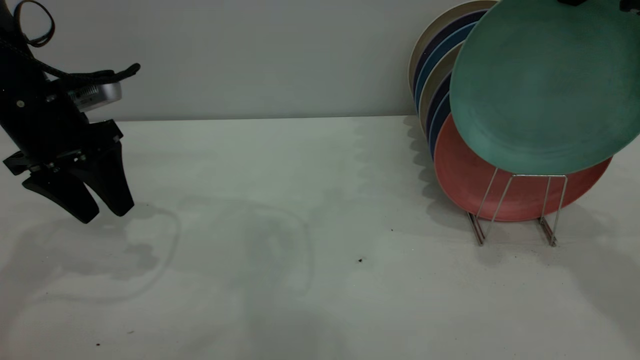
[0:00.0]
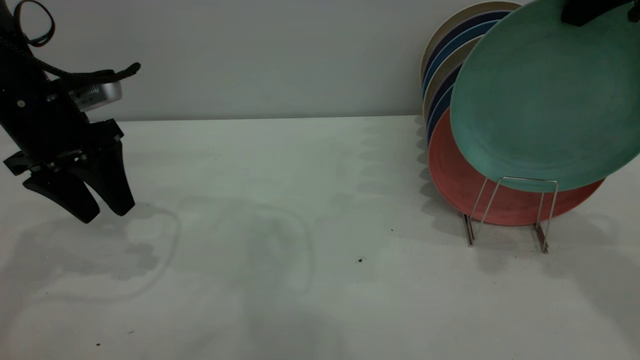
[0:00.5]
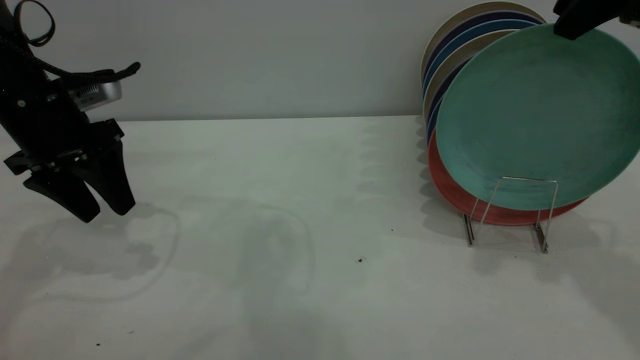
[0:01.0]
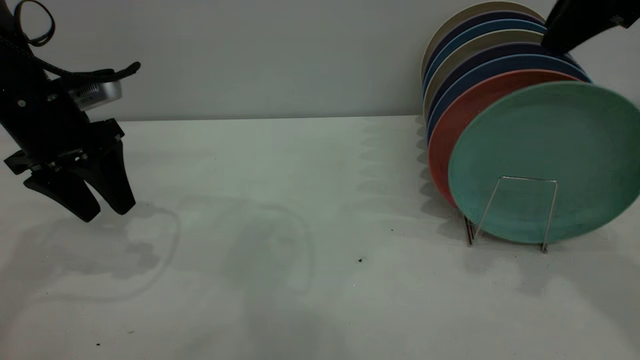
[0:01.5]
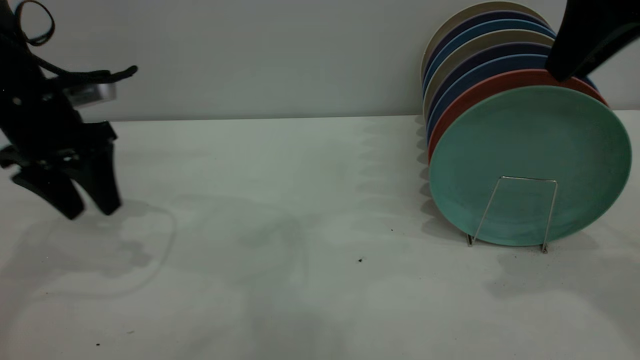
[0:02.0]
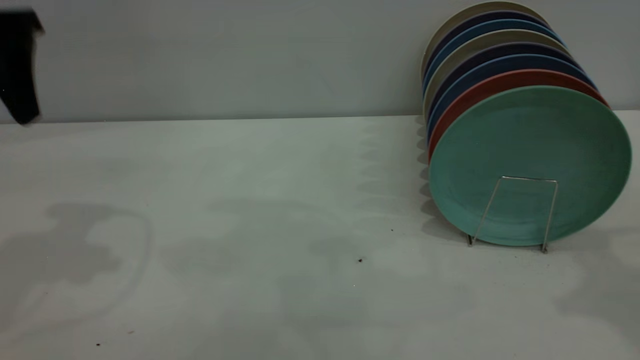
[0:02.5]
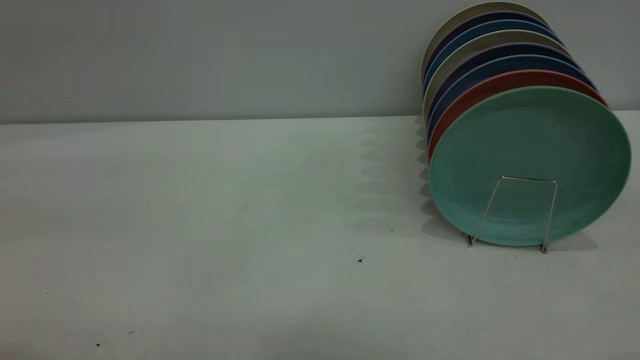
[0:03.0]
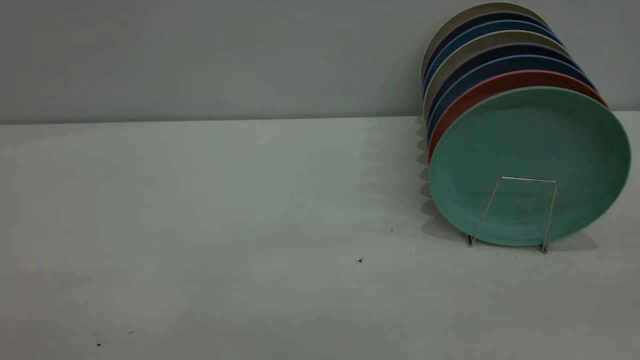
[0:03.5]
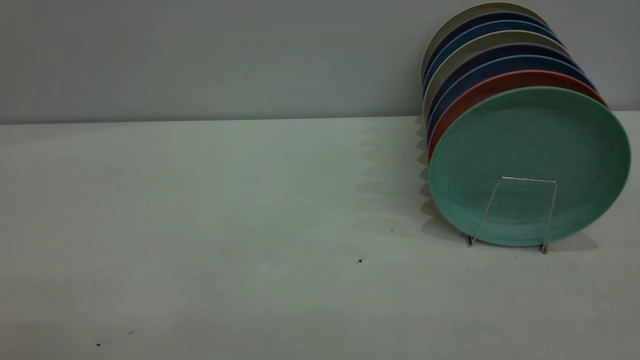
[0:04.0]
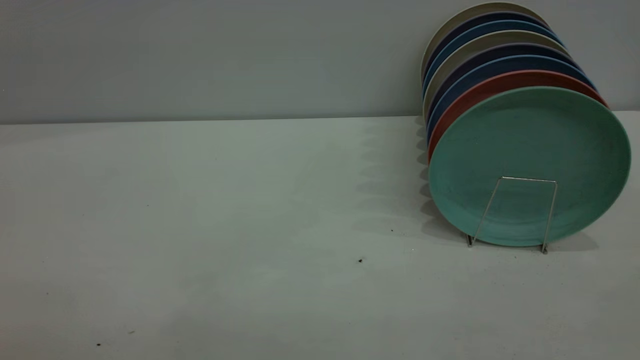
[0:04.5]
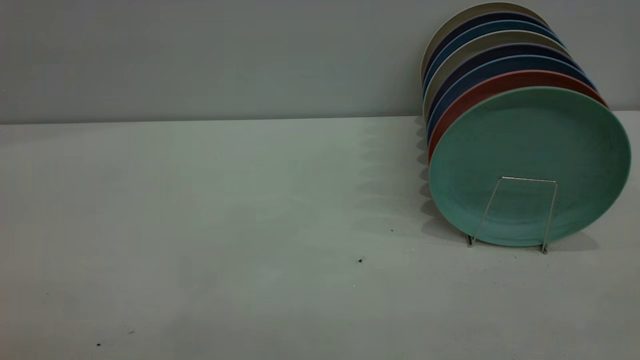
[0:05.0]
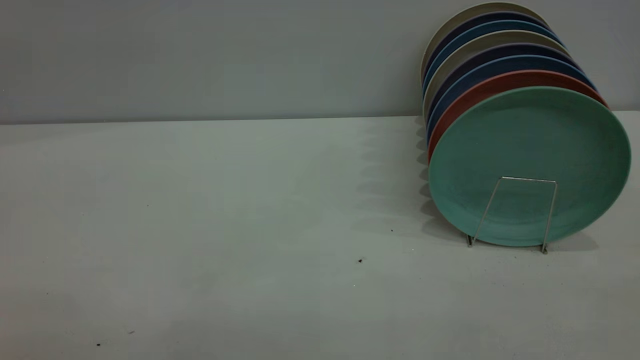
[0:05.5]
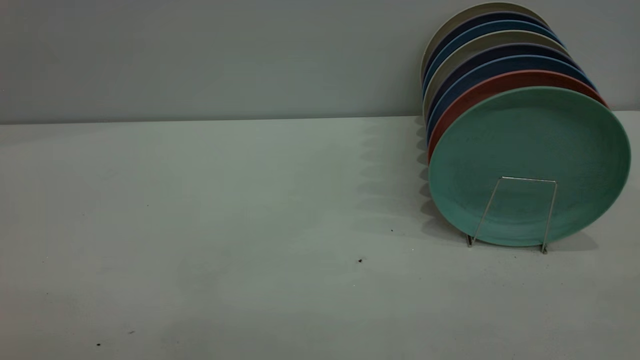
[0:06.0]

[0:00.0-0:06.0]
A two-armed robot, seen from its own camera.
Task of the whole recording: the left gripper grasp the green plate, the left gripper pass the green plate to the right gripper, and the right gripper place the green plate on the plate rack.
Step, 0:00.0 to 0:02.0: Place the plate on the shelf.
0:00.0 to 0:02.0: The right gripper opens.
0:02.0 to 0:04.0: The left gripper moves backward and upward, some 50 cm; the right gripper moves backward, approximately 35 cm.
